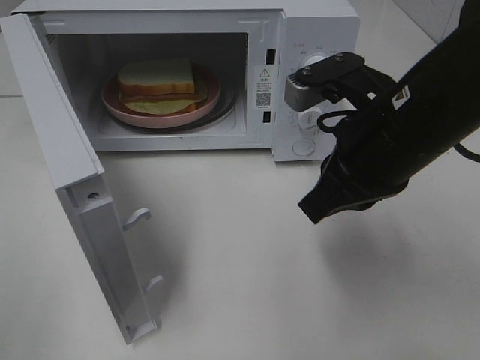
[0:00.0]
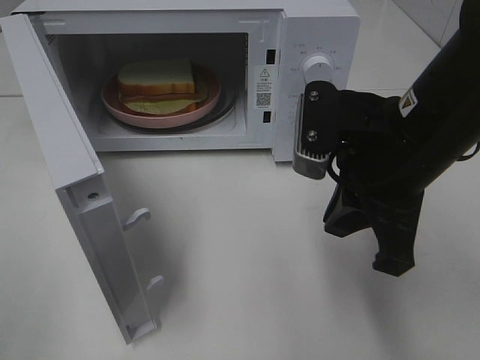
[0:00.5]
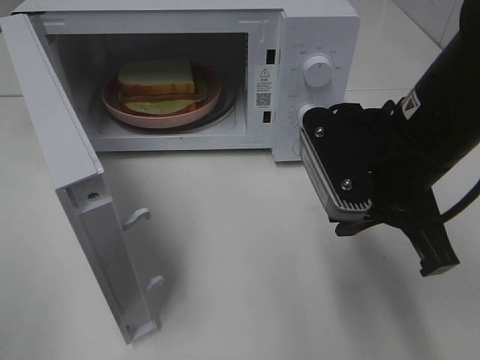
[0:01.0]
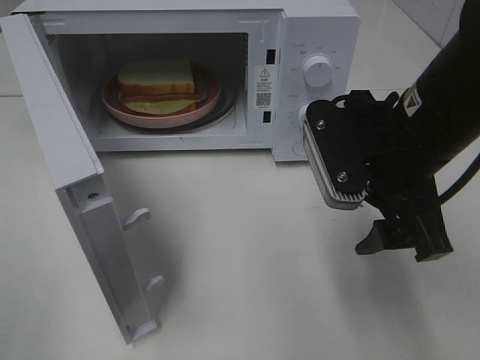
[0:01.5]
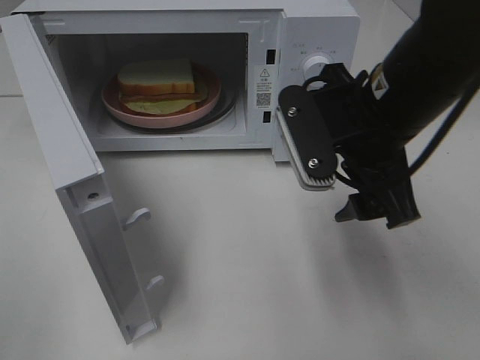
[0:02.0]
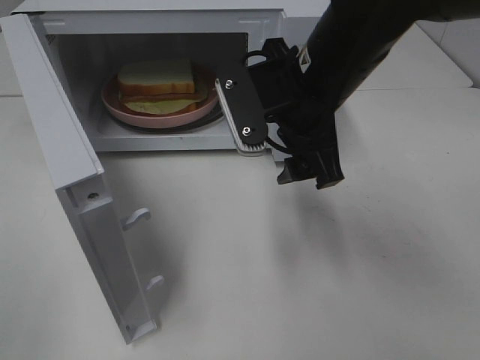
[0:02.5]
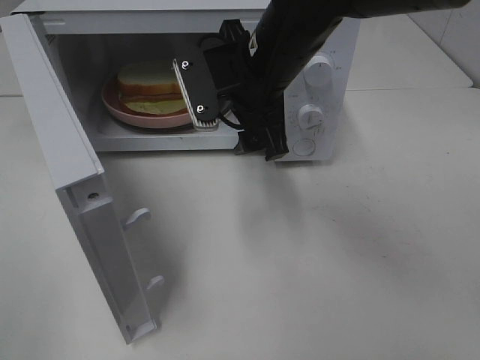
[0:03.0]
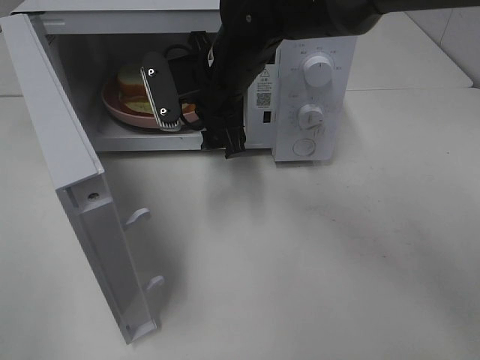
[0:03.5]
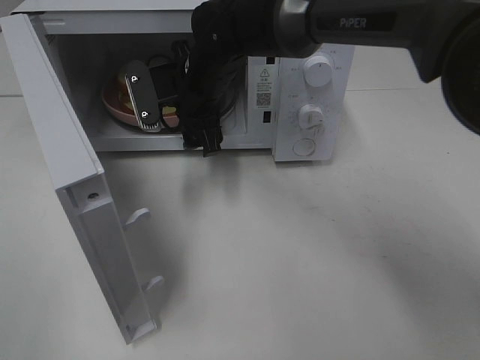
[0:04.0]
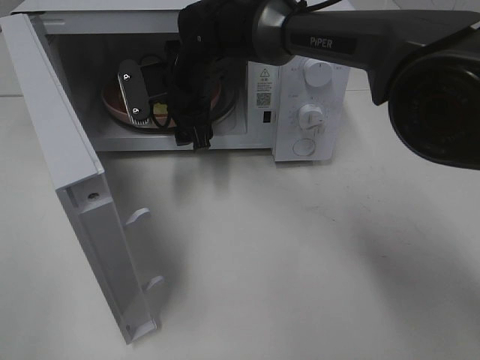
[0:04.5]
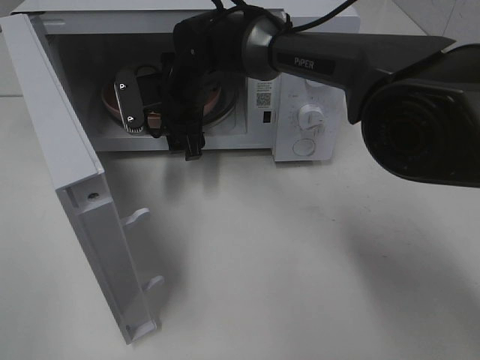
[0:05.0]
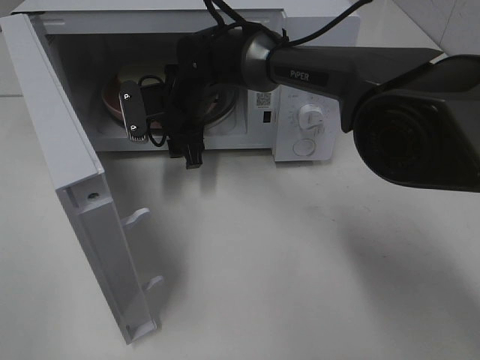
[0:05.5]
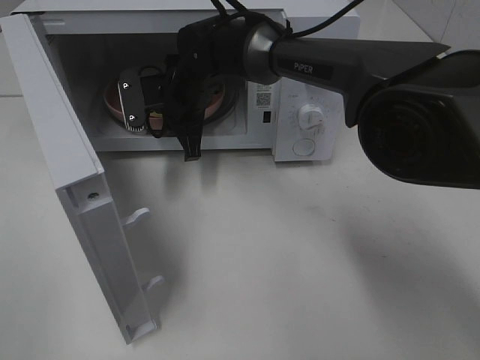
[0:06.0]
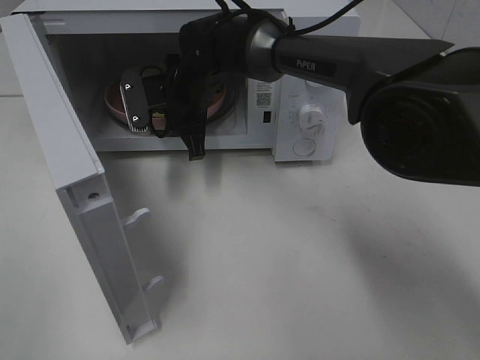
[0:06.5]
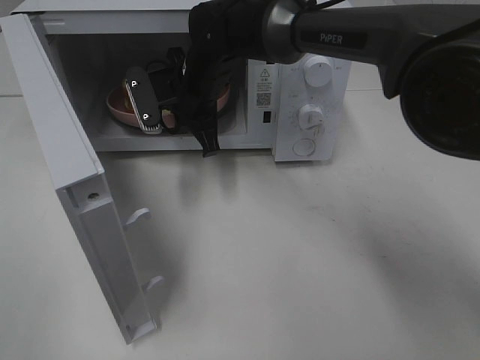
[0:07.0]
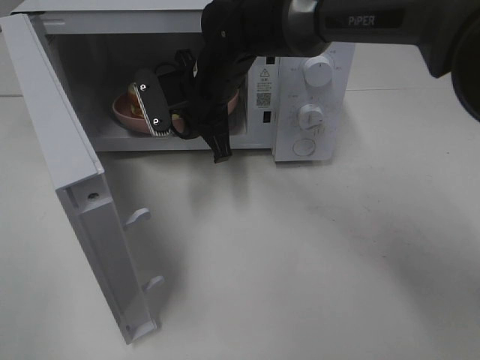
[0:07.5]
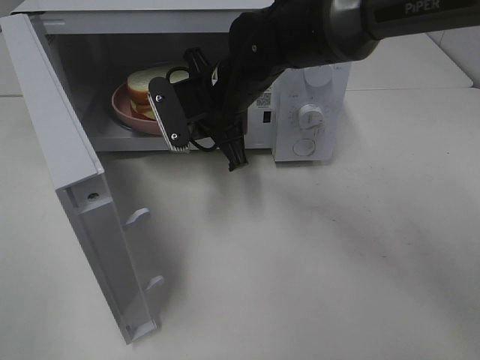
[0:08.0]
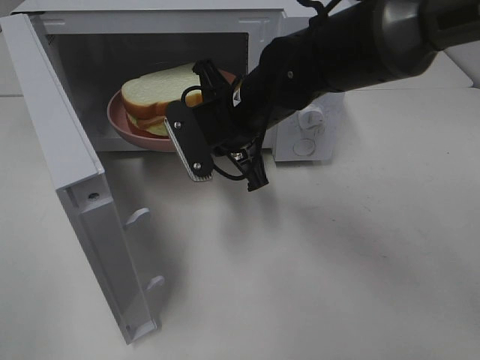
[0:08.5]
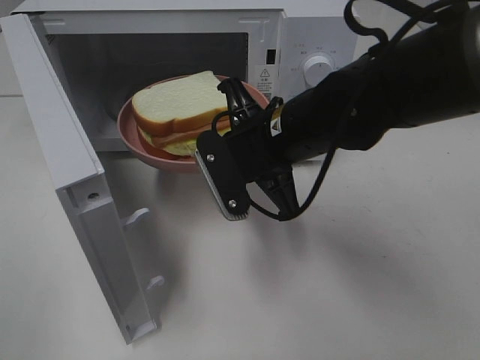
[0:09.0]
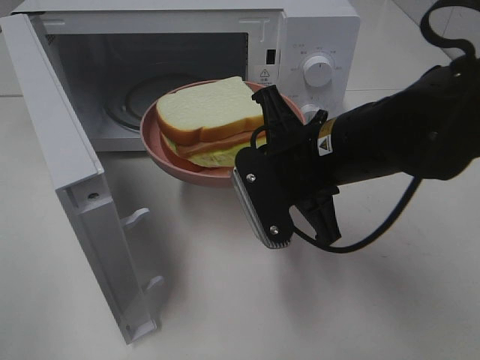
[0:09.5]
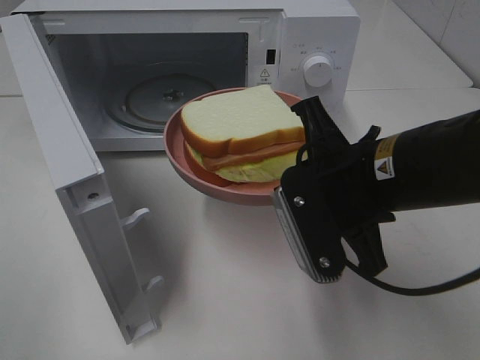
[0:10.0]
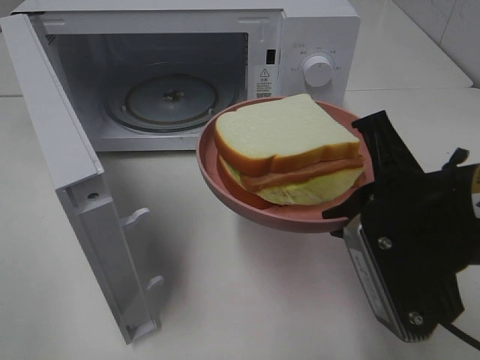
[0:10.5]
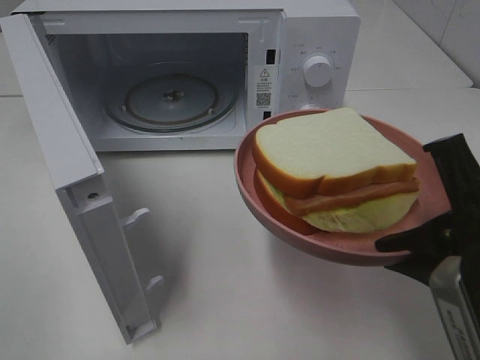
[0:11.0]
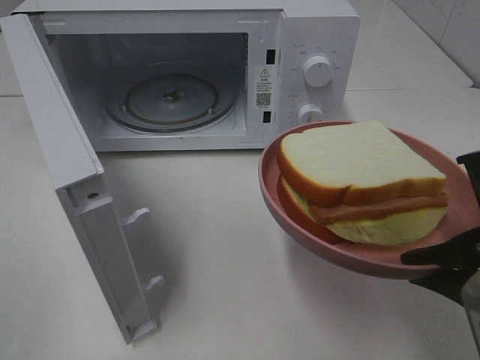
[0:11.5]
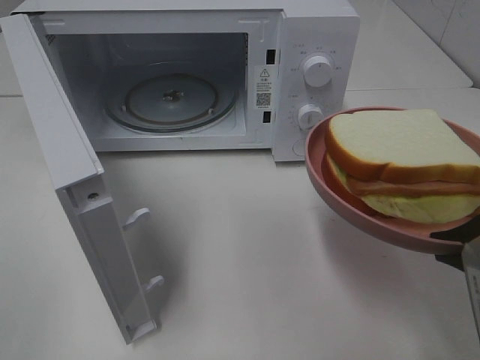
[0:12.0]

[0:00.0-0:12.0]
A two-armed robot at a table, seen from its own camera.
Task of the whole recording: Heat Sandwich.
Step, 0:00.0 to 0:07.5: Right hand: grab the plate with the sandwich.
0:00.0 to 0:02.0: The right gripper opens up.
0:02.0 to 0:04.0: The right gripper travels forward and to the left by some 20 cm.
0:04.0 to 0:06.0: The right gripper shifts by some 5 cm, and closes its fingers.
0:06.0 to 0:08.0: The right gripper goes about 10 cm backward and to the right.
0:08.0 to 0:10.0: The right gripper travels backward and to the right by roughly 20 cm.
0:10.0 to 0:12.0: The right gripper goes about 15 cm to the right and backward.

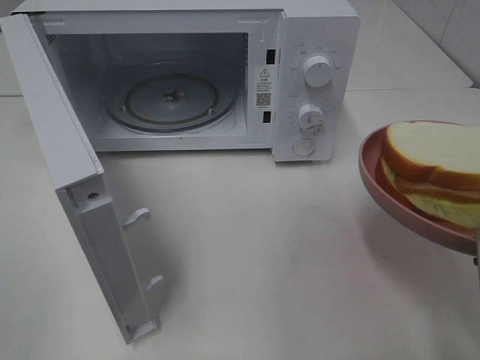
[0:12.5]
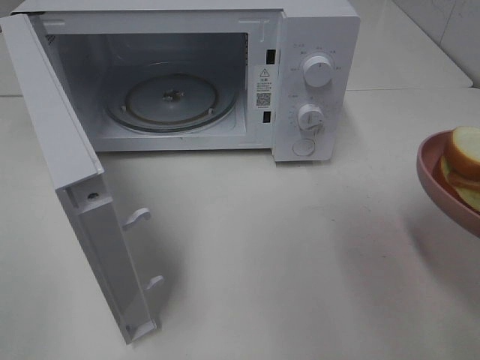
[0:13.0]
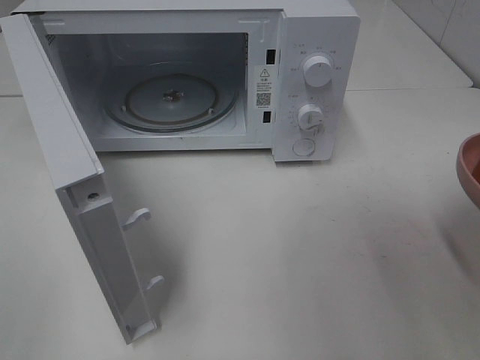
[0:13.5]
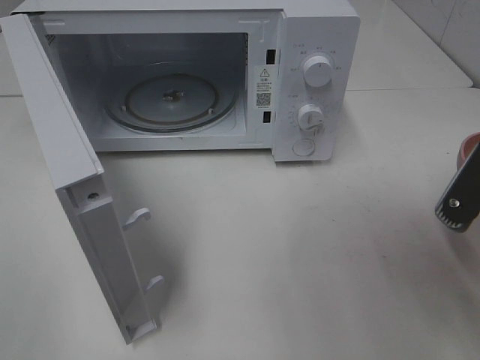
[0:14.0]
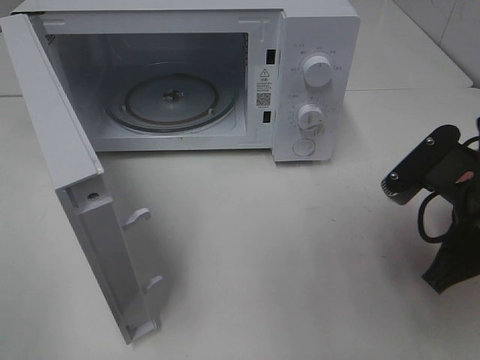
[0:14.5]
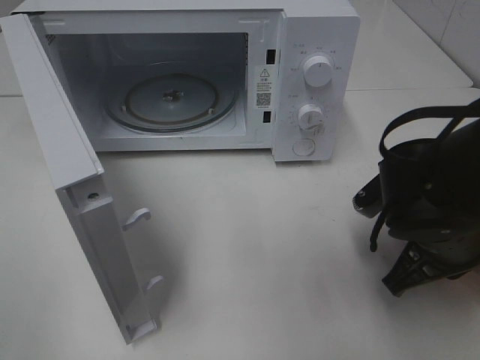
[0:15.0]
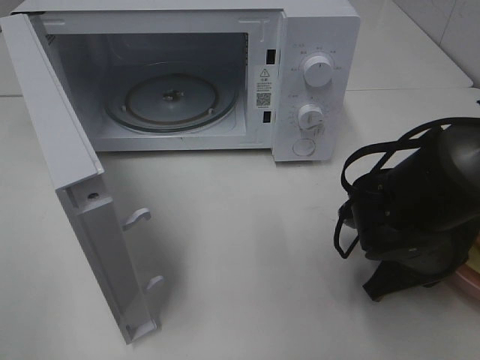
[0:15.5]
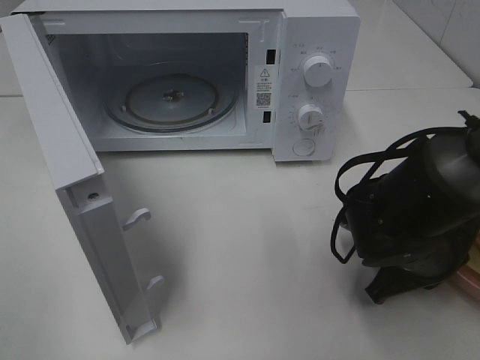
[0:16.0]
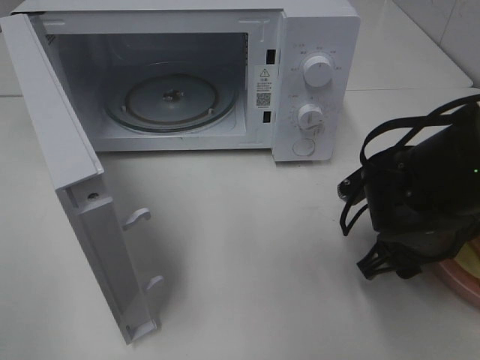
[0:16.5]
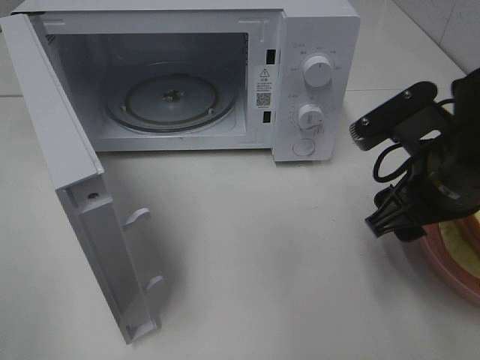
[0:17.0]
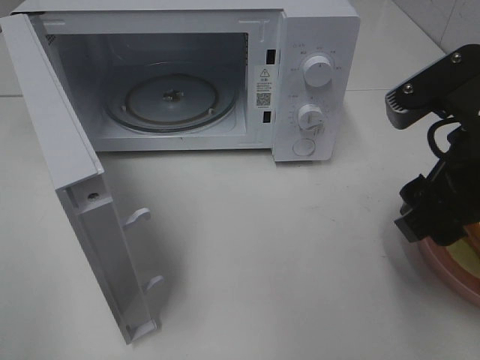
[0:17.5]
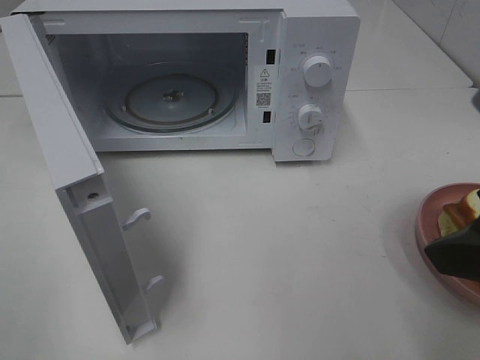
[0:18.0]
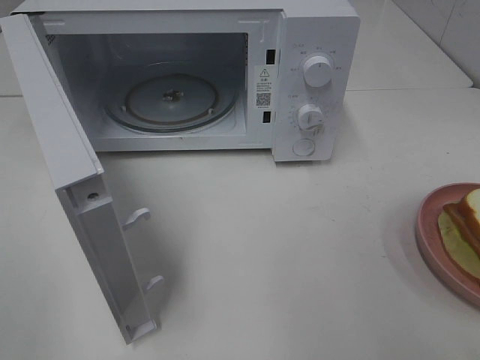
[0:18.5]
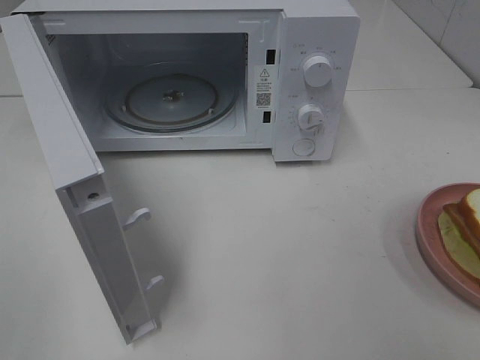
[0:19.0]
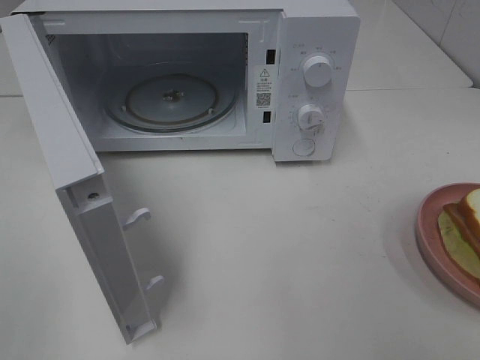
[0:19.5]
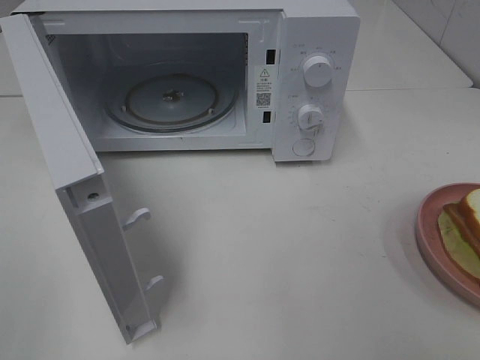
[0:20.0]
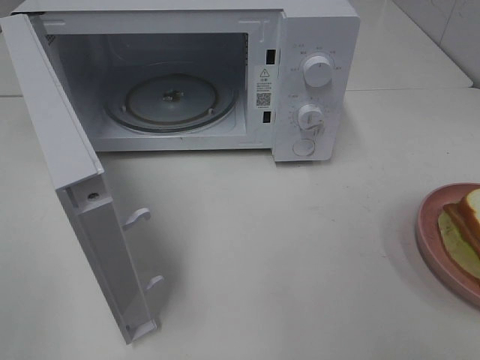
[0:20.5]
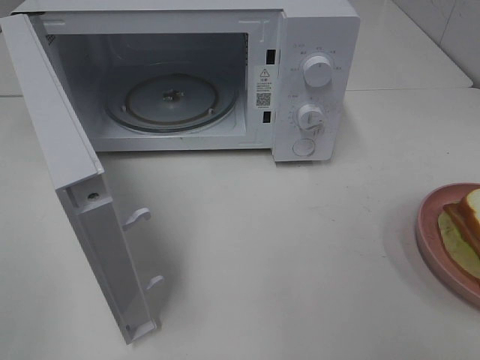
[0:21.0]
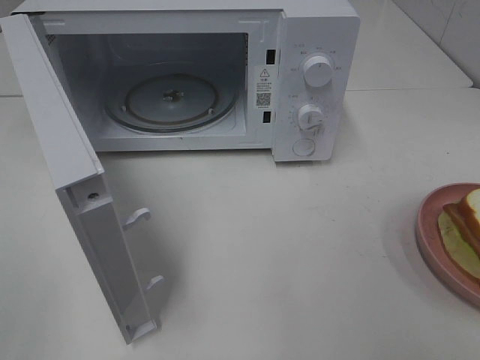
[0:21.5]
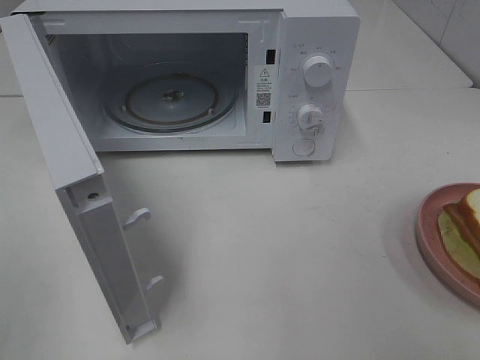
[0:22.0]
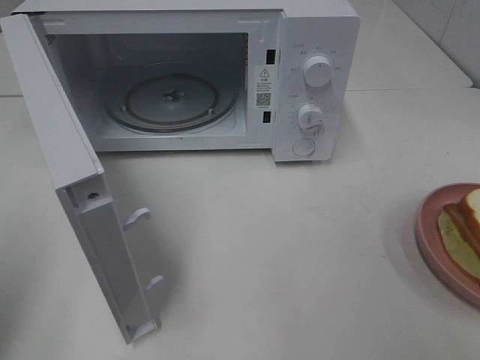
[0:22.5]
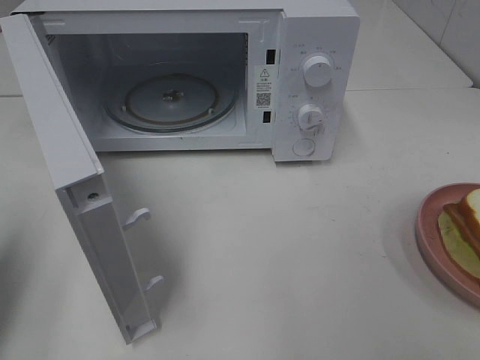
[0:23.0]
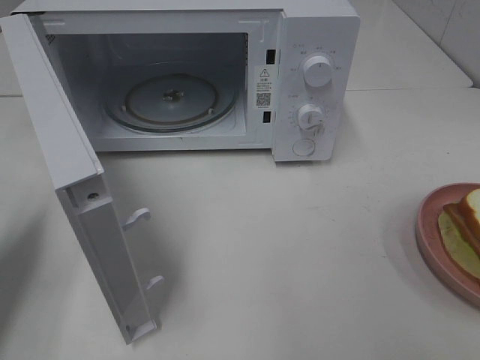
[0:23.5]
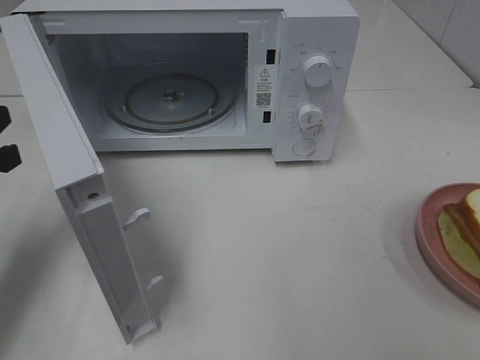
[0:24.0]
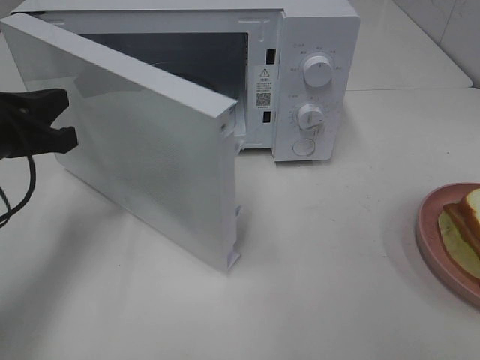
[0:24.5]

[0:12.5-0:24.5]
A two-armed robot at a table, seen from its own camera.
Task of the whole recording: Heat Sandwich.
Step, 0:12.5 to 0:17.5: Right hand: place the plate on the table.
0:12.5 to 0:14.5: The right gripper travels forward by some 10 cm.
0:14.5 to 0:16.5: The right gripper shifts approximately 5 cm downward, and opens up.
0:16.5 to 0:18.5: The right gripper moves upward, backward and to the right, some 25 cm.
0:22.5 to 0:24.5: The left gripper heads forward, downward and to the right, covering roughly 20 cm.

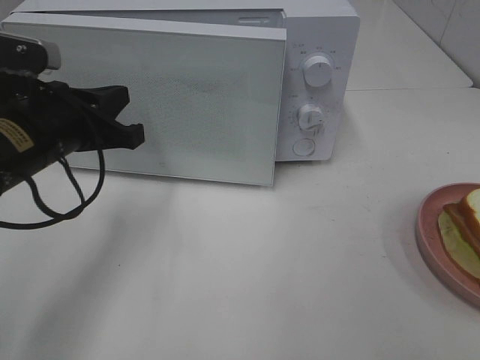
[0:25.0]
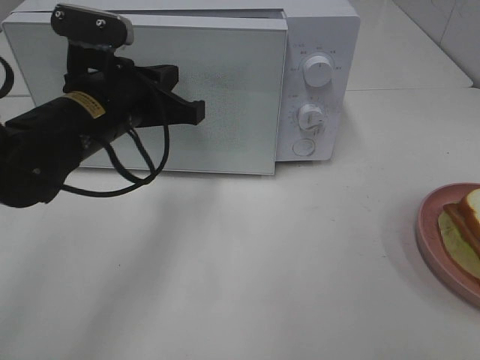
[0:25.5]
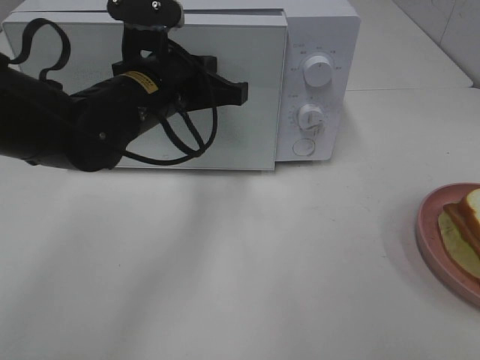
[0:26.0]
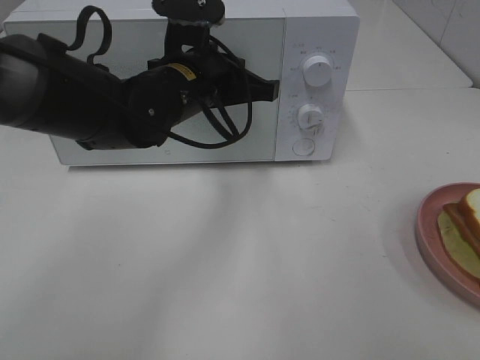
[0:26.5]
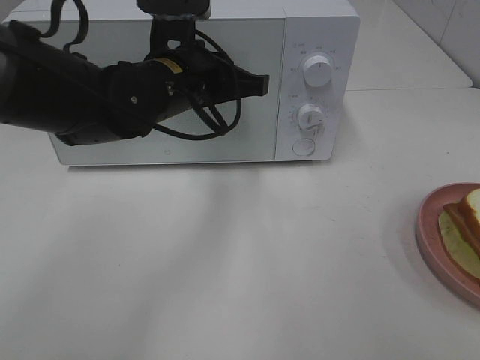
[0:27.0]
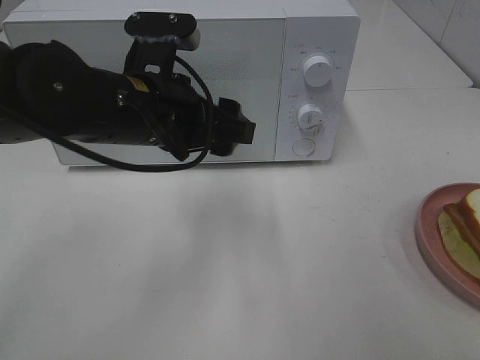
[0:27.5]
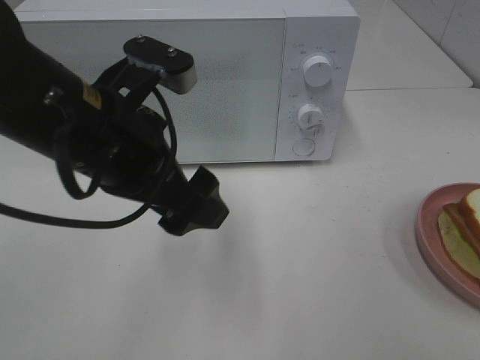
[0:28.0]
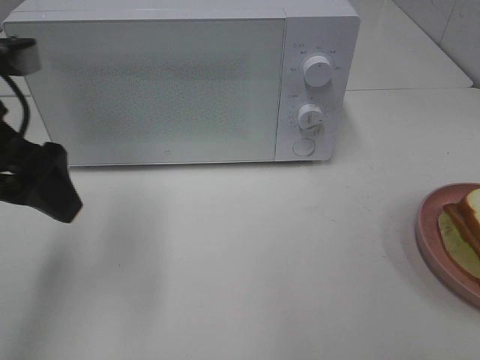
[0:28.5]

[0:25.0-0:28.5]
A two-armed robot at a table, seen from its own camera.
Task of the whole recording: Heat Sandwich.
Step, 0:25.0 to 0:27.5: Left hand: close the microwave door.
0:25.0 to 0:27.0: The left gripper shifts some 15 cm to the right and forward.
0:27.0 to 0:28.5: The left gripper is displaced to the left and backward by some 20 cm, and opens up.
